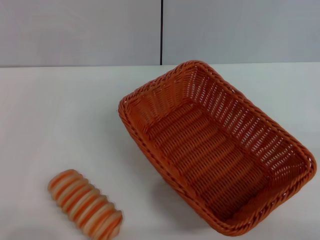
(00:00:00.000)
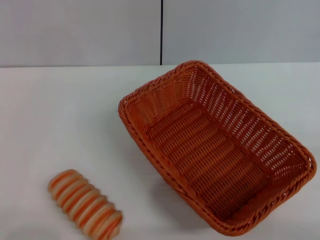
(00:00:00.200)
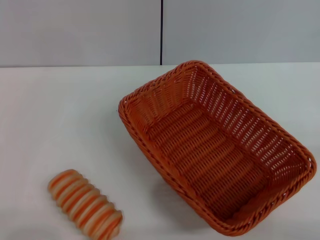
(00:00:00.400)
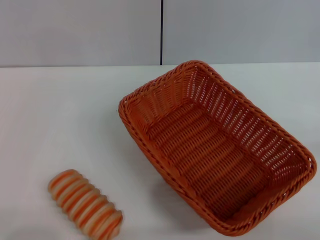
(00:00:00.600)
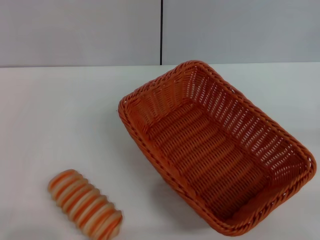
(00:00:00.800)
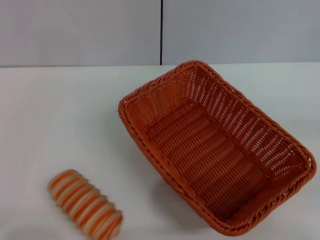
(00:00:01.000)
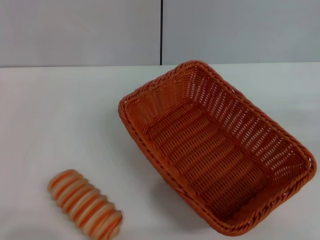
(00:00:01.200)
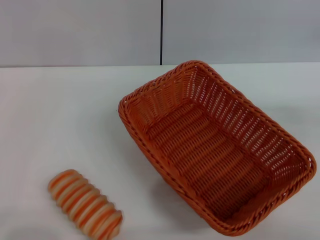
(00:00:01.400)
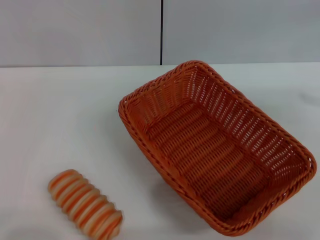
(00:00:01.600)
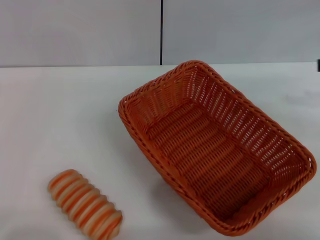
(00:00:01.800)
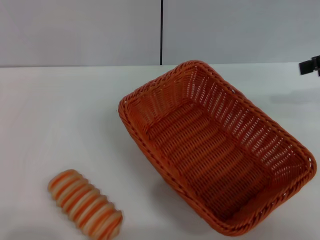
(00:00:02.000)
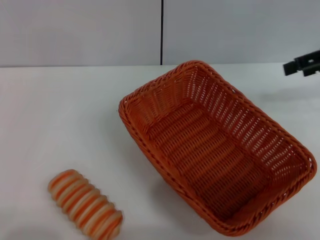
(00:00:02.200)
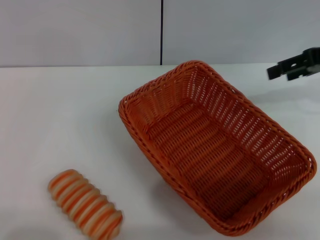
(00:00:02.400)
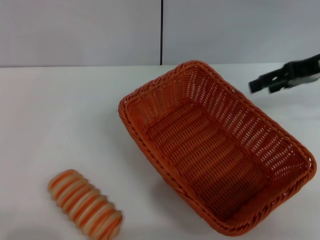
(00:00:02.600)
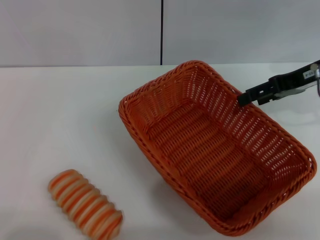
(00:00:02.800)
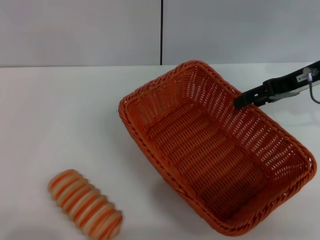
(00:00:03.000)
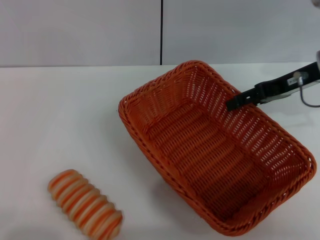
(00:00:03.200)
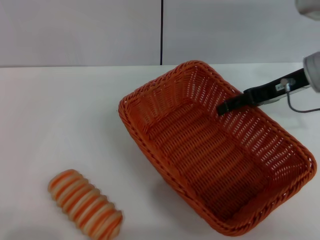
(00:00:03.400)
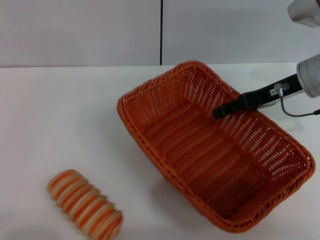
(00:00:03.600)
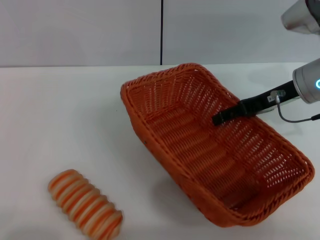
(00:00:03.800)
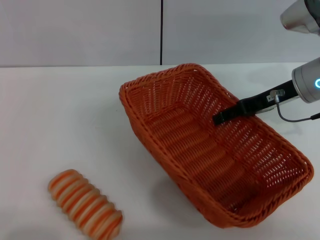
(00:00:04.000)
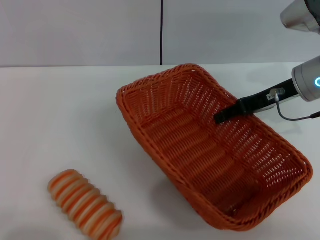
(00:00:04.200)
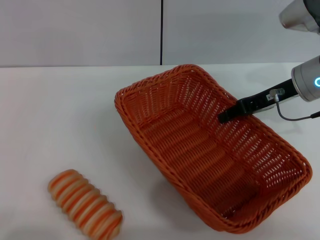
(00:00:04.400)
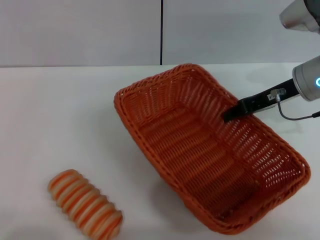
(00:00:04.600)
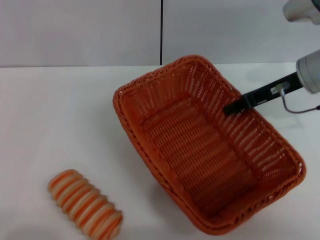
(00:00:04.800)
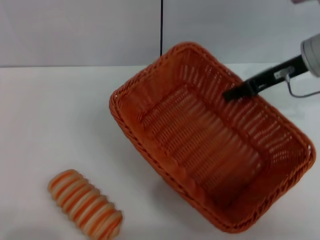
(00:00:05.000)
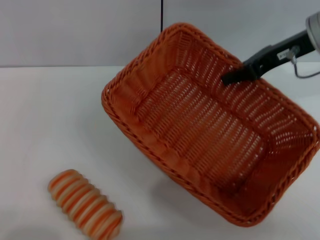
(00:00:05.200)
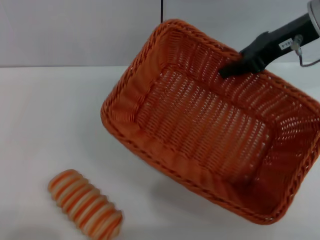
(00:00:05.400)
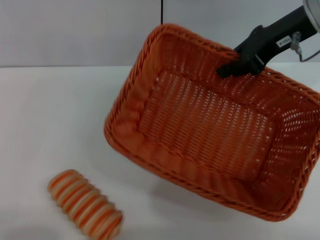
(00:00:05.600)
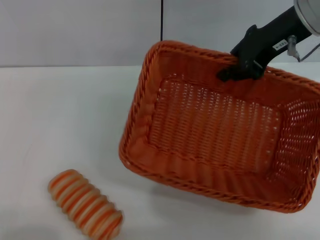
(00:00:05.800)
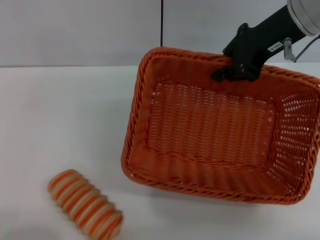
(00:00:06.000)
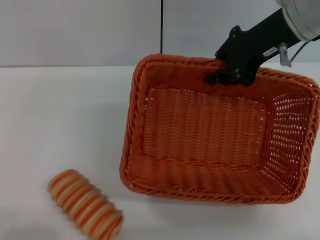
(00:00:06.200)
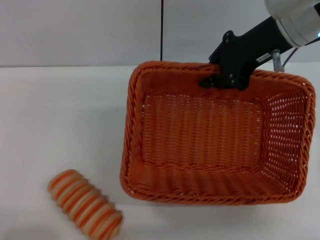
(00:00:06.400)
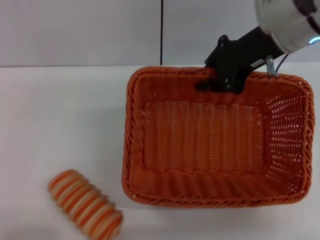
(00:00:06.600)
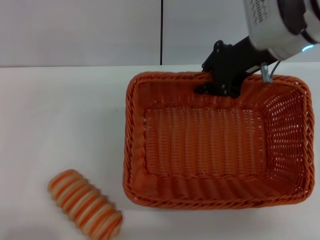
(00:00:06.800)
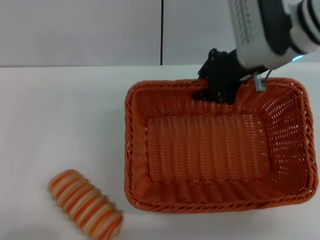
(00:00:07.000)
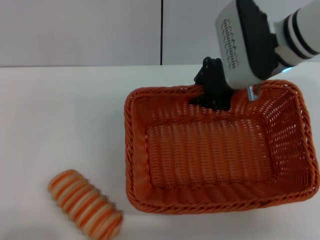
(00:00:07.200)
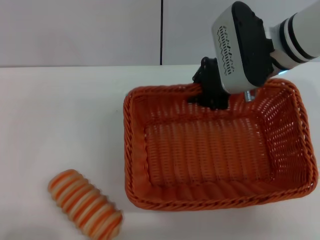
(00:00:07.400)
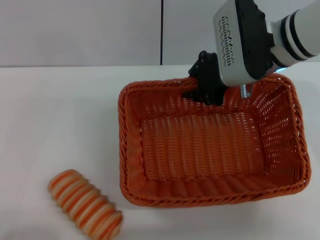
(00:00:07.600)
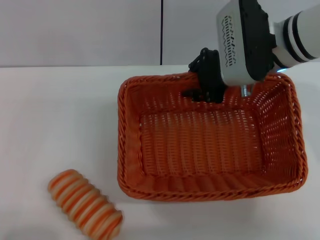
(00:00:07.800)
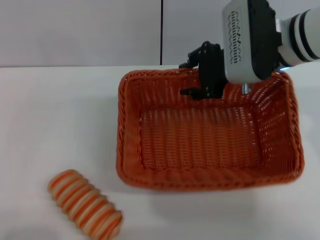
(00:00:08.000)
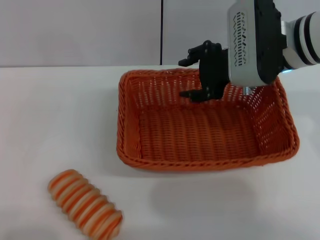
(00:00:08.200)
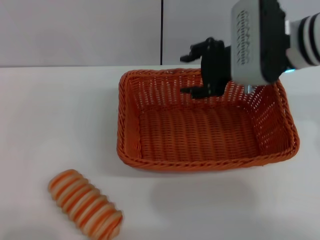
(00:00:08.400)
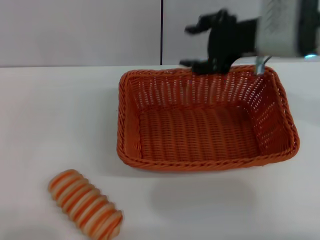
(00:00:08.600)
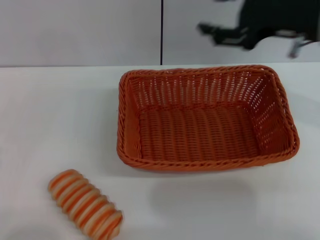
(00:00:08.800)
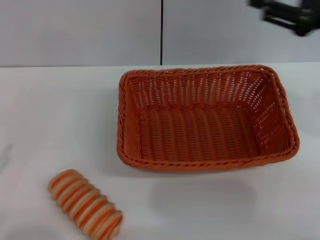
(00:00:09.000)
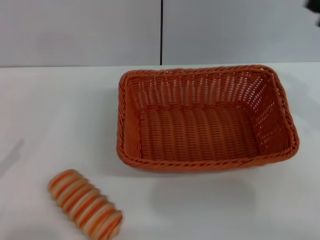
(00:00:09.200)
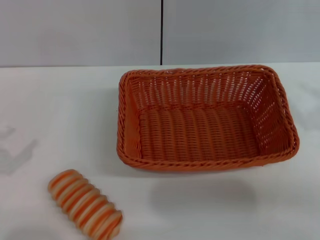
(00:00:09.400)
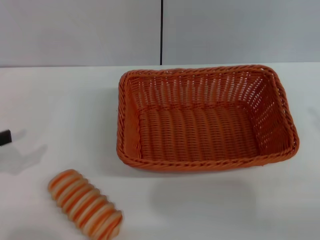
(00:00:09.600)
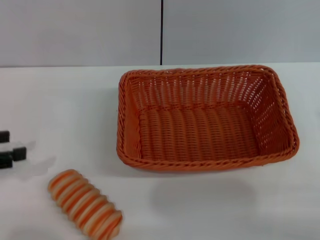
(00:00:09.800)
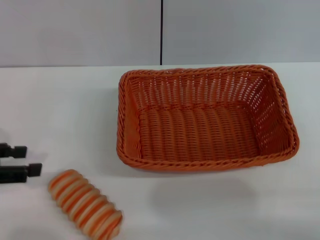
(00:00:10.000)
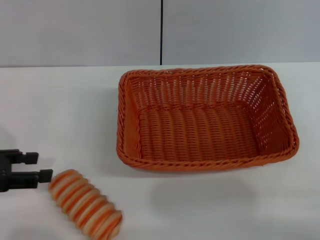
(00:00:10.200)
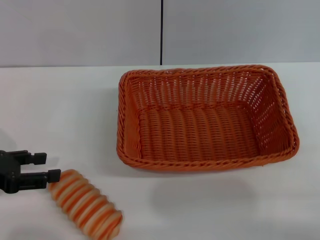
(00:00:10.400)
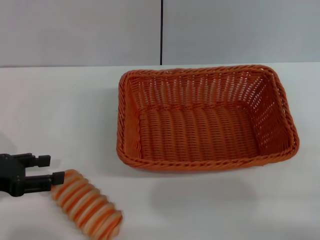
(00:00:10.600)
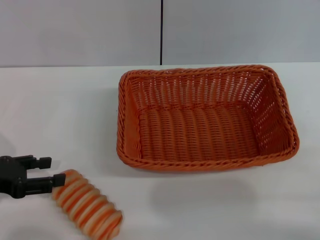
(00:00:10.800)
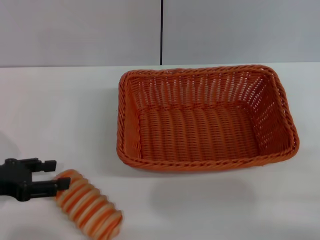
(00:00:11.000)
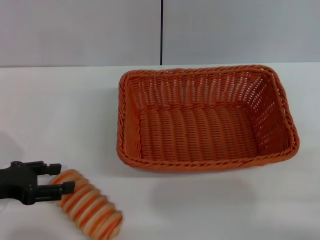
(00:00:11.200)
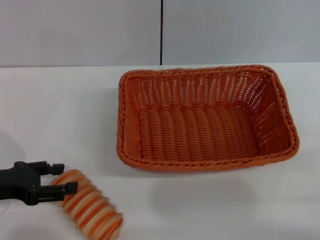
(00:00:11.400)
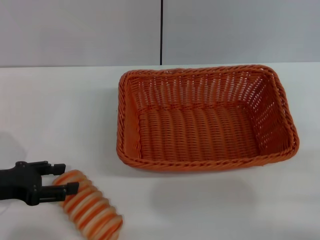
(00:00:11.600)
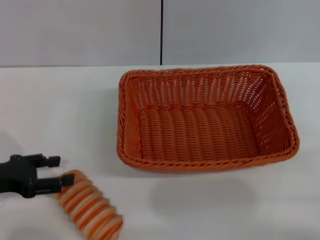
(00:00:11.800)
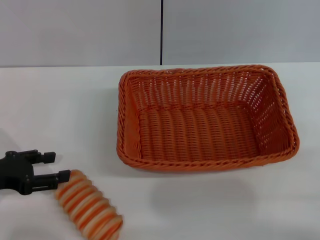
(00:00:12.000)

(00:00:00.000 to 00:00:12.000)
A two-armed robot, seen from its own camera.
Step, 00:00:00.000 - 00:00:05.600: Pick up the light basket with the right gripper.
Step, 00:00:05.800 - 00:00:08.400: Place the light basket in the center of view with the right gripper.
00:00:00.000 - 00:00:01.600: The right gripper goes some 20 cm upward and forward.
00:00:01.600 - 00:00:03.000: The right gripper goes about 15 cm to the left and forward.
00:00:03.000 - 00:00:04.400: The right gripper shifts by some 5 cm.
00:00:04.400 - 00:00:06.000: The right gripper is displaced upward by some 10 cm, and closes.
00:00:06.000 - 00:00:07.600: The right gripper goes roughly 5 cm downward.
00:00:07.600 - 00:00:09.000: The right gripper moves to the right, backward and upward, roughly 15 cm, and opens its fingers; the left gripper changes place by some 5 cm.
00:00:09.000 - 00:00:10.400: The left gripper travels forward by roughly 10 cm; the right gripper goes roughly 20 cm backward, downward and to the right.
00:00:10.400 - 00:00:12.000: The grippers stay close to where they were, moving slightly.

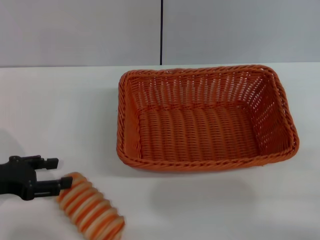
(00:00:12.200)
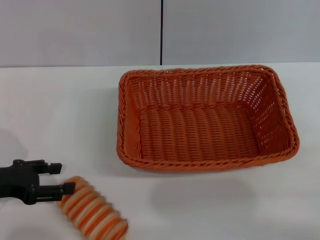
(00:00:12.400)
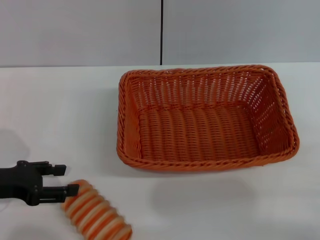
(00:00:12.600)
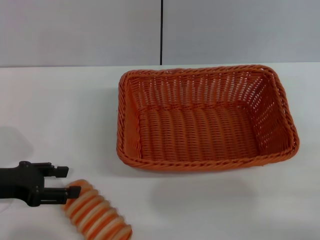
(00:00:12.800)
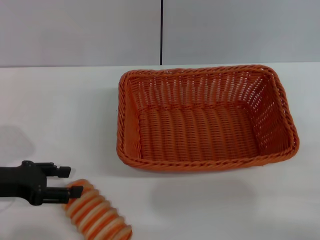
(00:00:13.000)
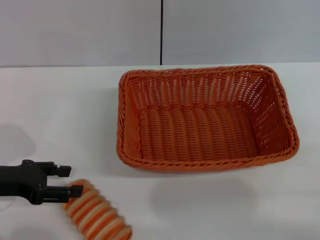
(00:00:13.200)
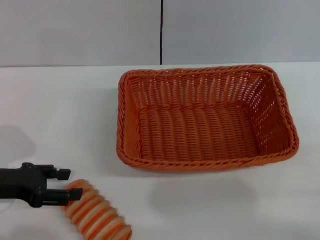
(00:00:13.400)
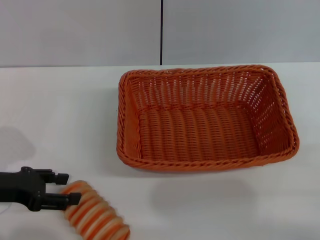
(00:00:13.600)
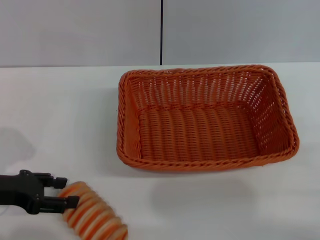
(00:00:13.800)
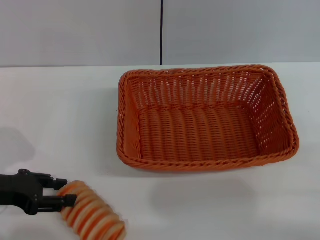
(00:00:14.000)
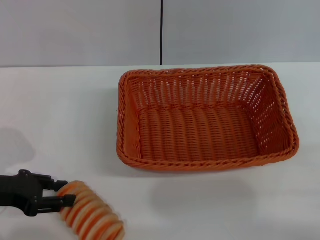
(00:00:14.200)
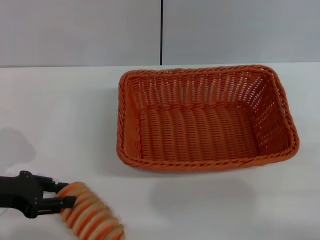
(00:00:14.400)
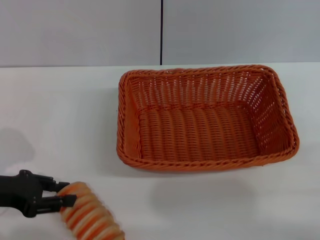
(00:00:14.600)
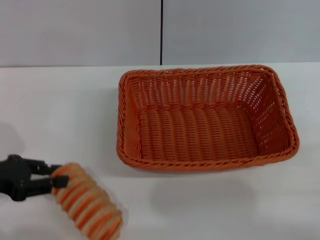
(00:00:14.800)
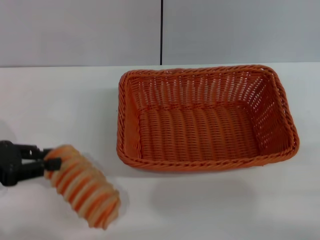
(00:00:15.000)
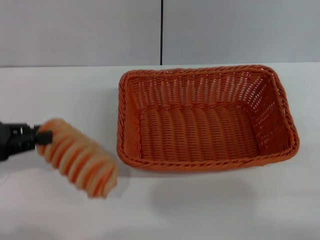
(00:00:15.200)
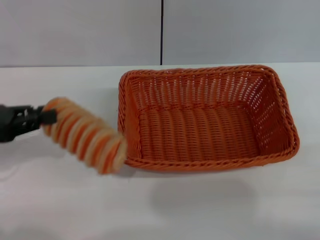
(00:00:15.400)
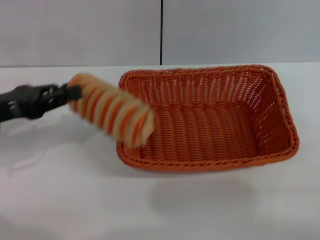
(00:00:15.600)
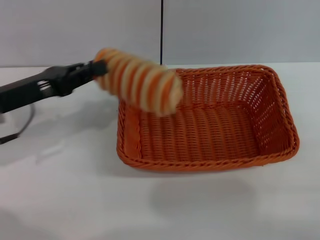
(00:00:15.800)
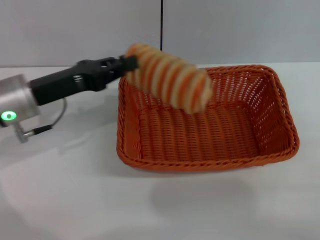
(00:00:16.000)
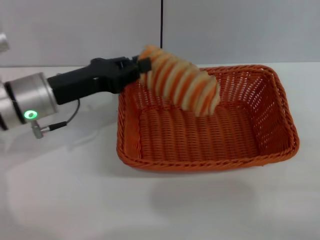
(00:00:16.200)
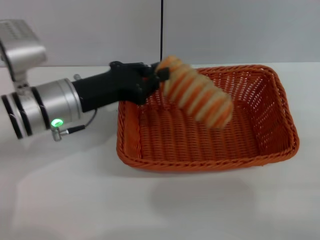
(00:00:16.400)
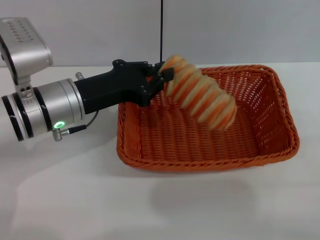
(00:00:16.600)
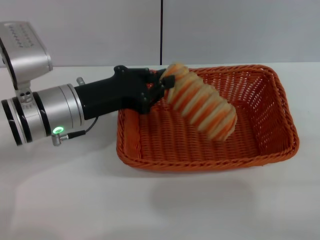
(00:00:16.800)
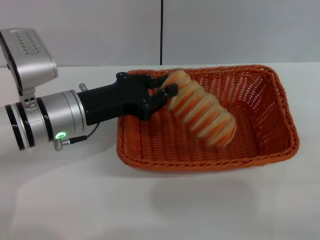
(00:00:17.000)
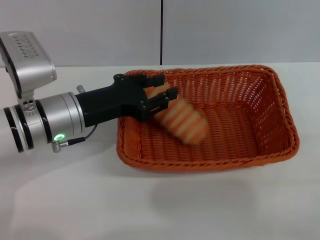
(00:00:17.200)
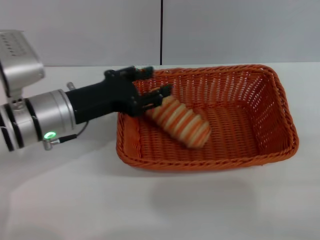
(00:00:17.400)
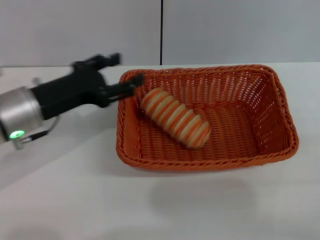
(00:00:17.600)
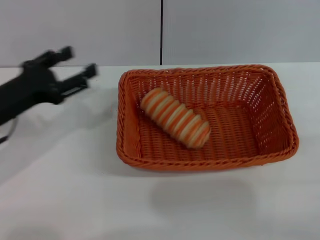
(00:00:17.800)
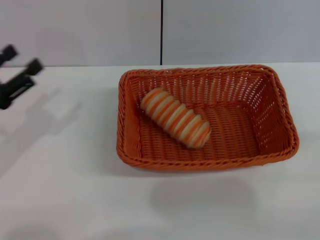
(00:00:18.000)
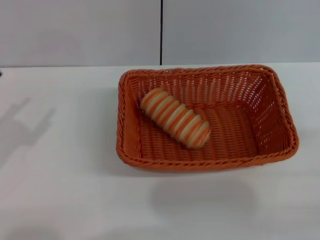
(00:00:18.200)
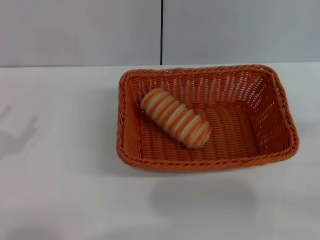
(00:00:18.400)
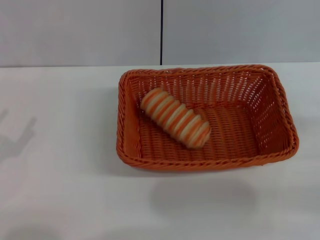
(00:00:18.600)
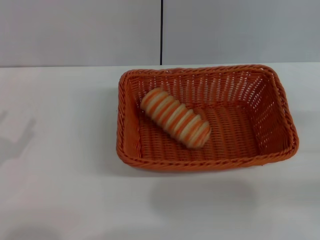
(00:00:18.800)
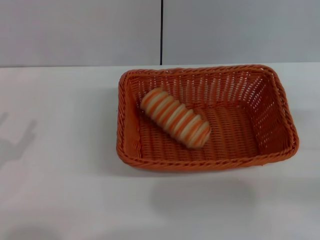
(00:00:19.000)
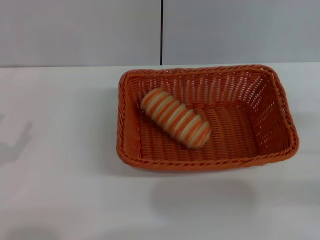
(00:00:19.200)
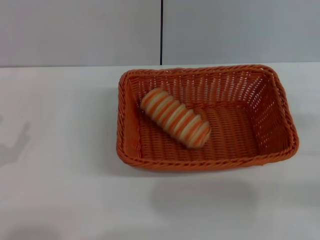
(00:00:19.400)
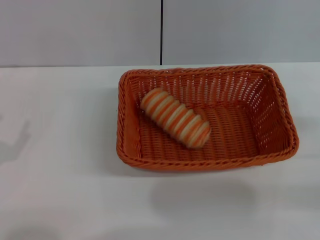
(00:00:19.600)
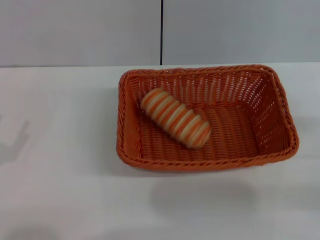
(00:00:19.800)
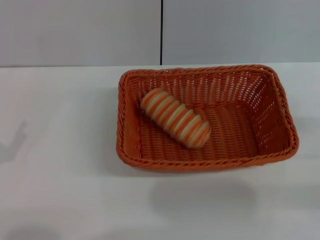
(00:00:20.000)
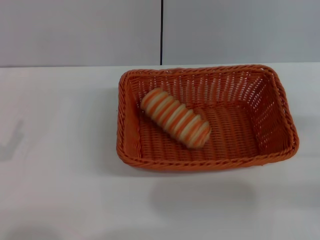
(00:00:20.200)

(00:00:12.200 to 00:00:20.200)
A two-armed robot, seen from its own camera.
Step, 00:00:12.200 - 00:00:15.400: Pick up the long bread with the left gripper.
Step, 00:00:15.600 - 00:00:17.600: Place the long bread into the light basket with the left gripper.
00:00:12.200 - 00:00:13.800: There are only small adjustments of the grippers.
00:00:13.800 - 00:00:15.400: The left gripper shifts some 5 cm upward, and closes up.
00:00:15.400 - 00:00:17.000: The left gripper shifts approximately 15 cm to the right.
00:00:17.000 - 00:00:18.600: The left gripper travels to the left and backward by approximately 20 cm, and opens up.
